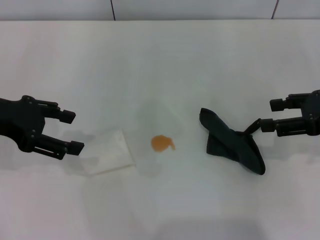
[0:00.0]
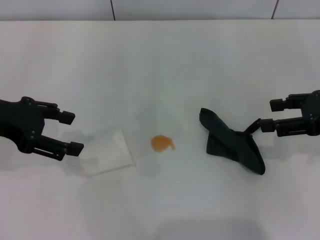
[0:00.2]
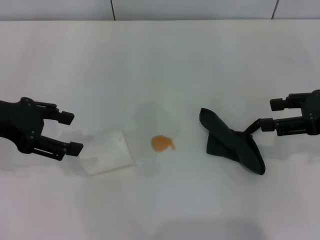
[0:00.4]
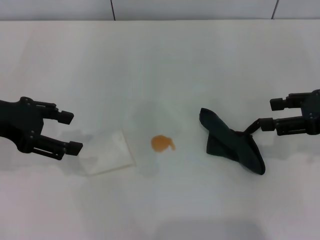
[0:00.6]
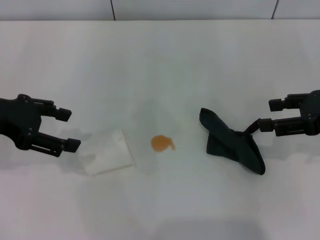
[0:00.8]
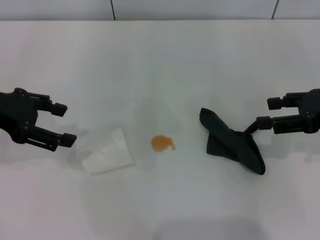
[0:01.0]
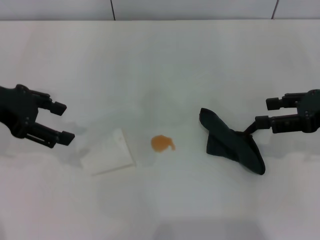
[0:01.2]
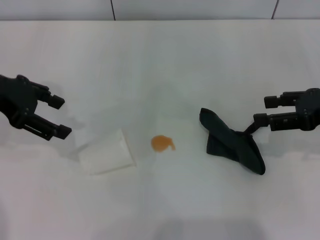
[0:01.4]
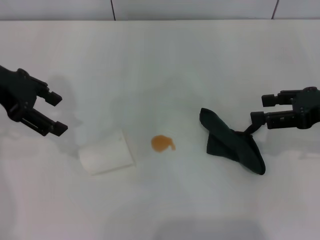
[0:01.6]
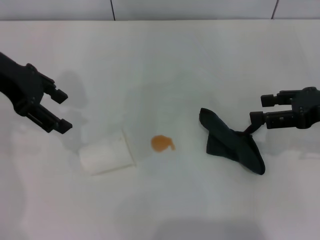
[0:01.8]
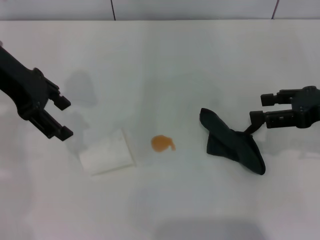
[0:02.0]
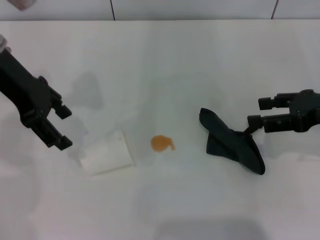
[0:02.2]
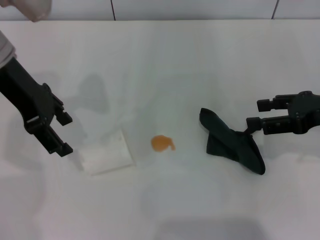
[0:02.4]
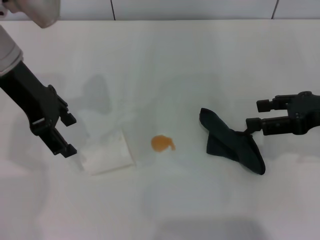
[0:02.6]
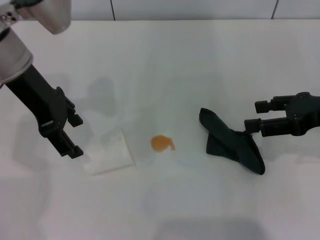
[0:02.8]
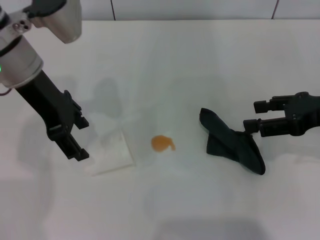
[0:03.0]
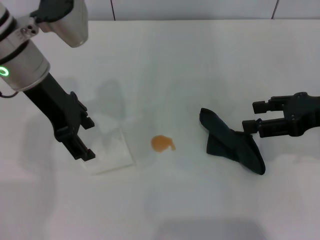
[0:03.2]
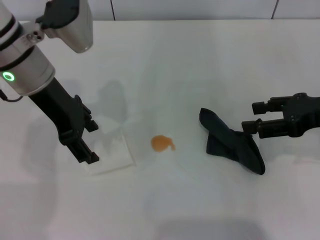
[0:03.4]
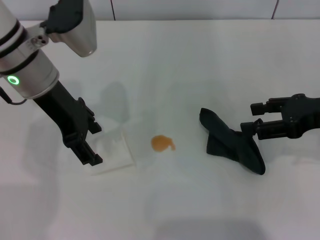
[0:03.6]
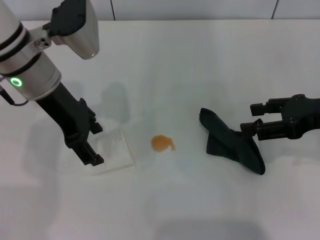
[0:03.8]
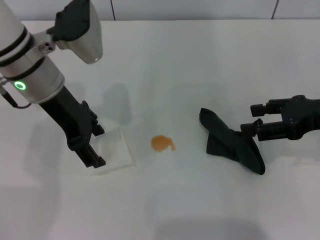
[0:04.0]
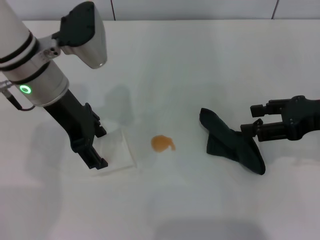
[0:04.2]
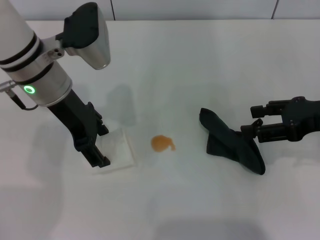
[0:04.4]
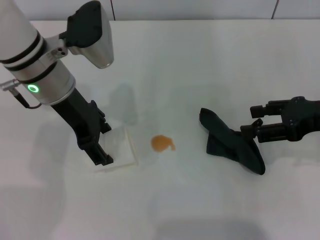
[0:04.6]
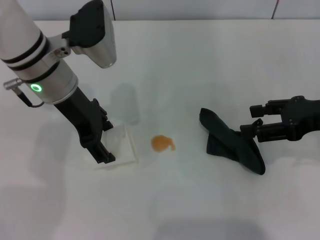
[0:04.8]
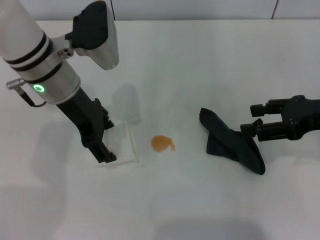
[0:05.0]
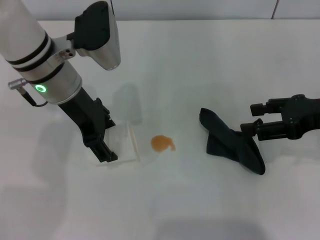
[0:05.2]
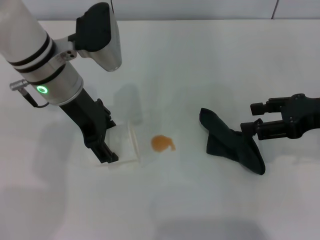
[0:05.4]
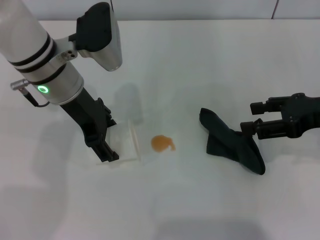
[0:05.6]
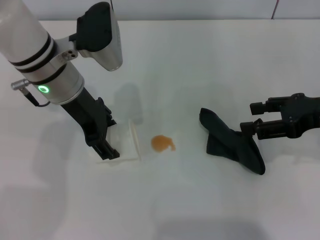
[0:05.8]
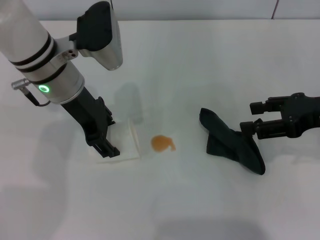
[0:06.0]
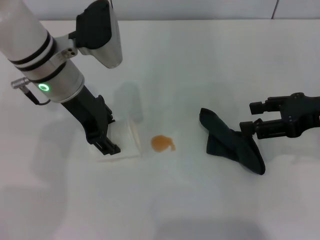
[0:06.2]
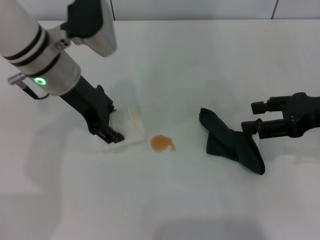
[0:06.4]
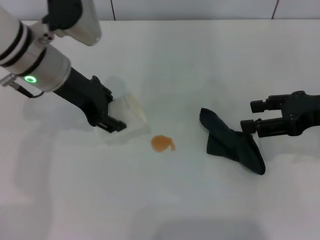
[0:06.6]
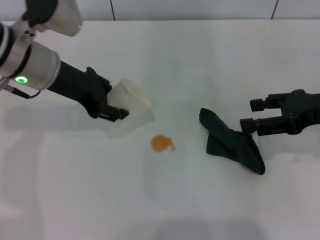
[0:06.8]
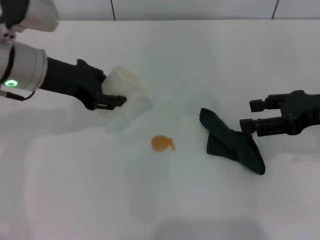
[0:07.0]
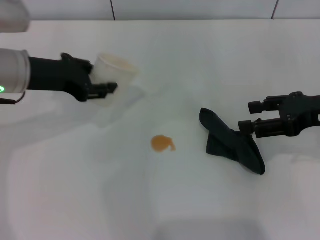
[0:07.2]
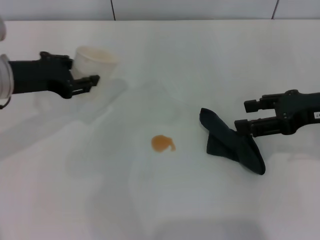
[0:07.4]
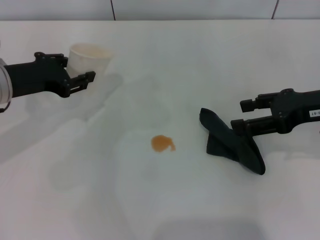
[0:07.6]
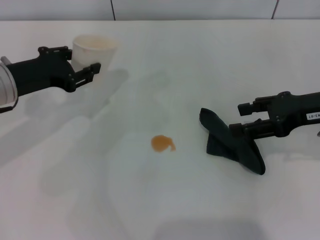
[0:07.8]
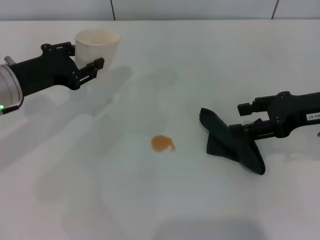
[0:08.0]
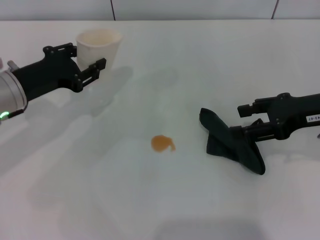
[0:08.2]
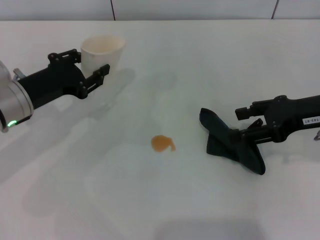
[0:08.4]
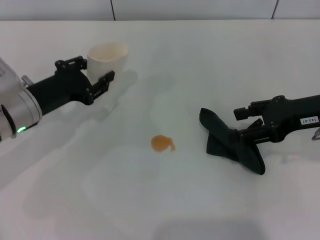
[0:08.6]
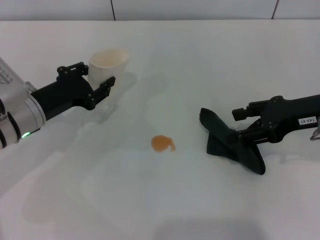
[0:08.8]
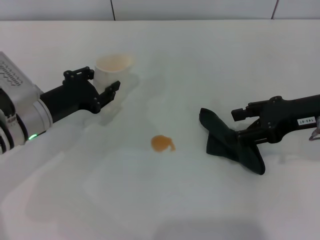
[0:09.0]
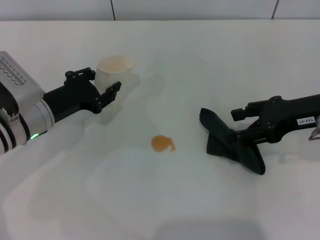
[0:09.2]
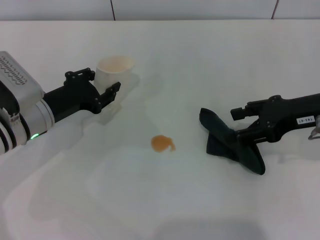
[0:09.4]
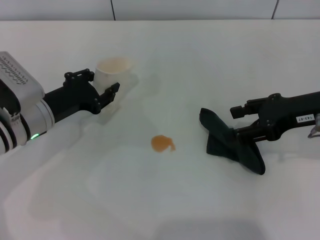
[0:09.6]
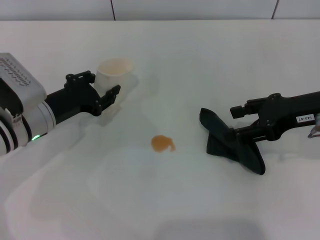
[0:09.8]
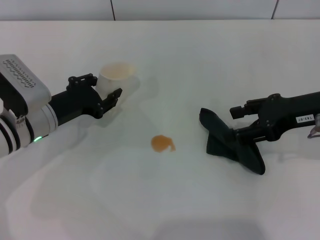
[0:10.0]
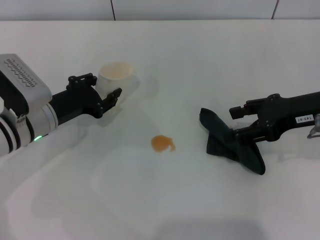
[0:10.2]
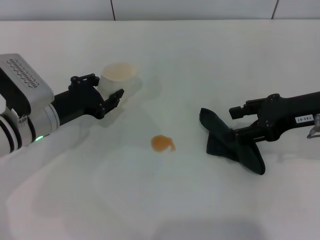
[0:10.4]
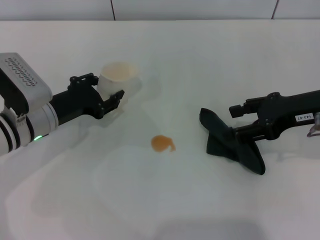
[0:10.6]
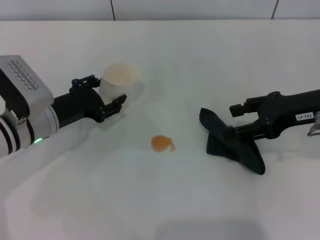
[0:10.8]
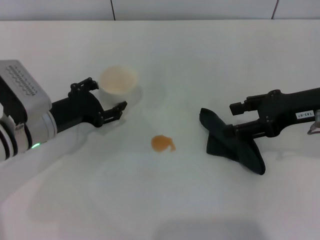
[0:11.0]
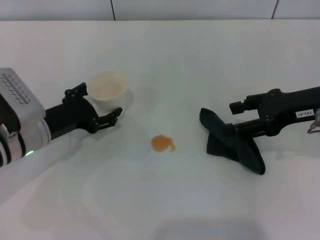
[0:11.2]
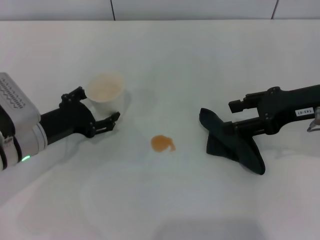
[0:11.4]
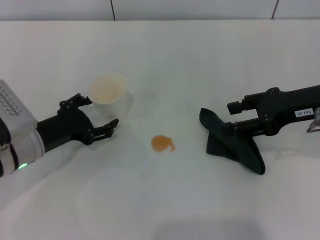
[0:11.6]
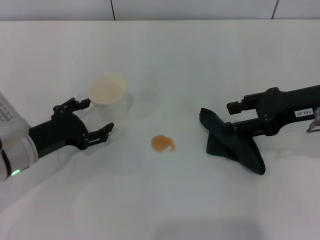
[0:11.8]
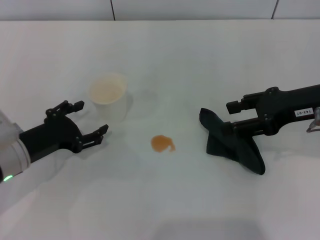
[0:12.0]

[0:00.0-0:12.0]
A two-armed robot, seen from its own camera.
Step, 0:00.0 to 0:06.0: Grasp the paper cup with the left gripper.
Step, 0:06.2 to 0:11.8: Stand the paper cup upright with the left gripper.
0:00.0 to 0:01.6: The left gripper heads forward, covering roughly 5 cm.
0:01.6 to 0:03.0: The left gripper heads to the right, covering about 10 cm.
0:03.0 to 0:06.0: The grippers stay close to where they were, moving slightly.
0:06.0 to 0:07.6: The left gripper shifts some 10 cm to the left, and closes.
0:07.6 to 0:09.0: The left gripper is displaced downward by some 10 cm.
0:09.0 to 0:10.4: The grippers stay close to where they were, moving slightly.
0:10.4 to 0:12.0: The left gripper shifts roughly 5 cm backward, and opens.

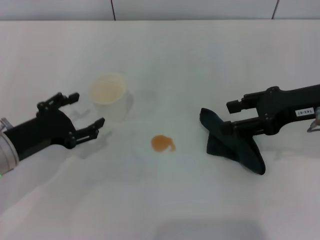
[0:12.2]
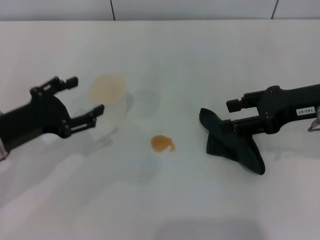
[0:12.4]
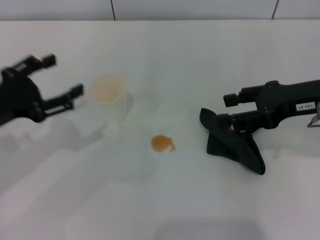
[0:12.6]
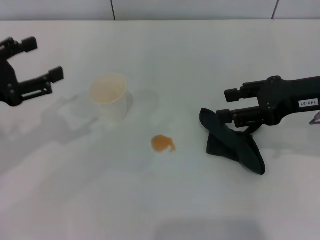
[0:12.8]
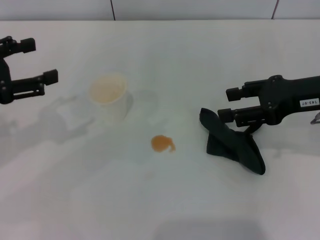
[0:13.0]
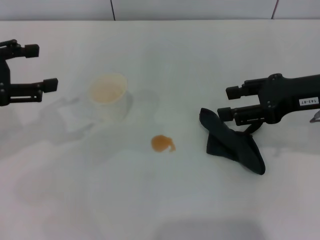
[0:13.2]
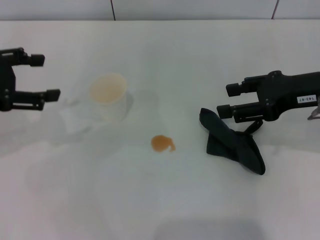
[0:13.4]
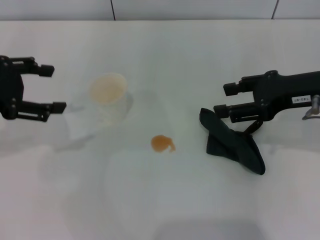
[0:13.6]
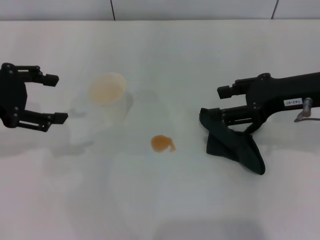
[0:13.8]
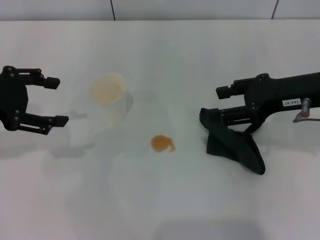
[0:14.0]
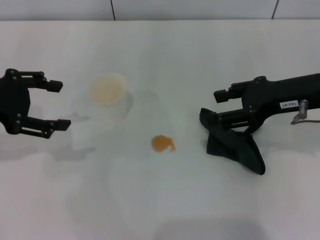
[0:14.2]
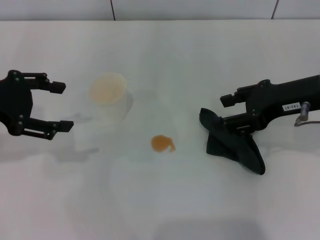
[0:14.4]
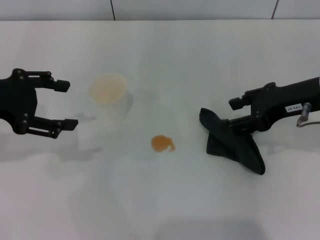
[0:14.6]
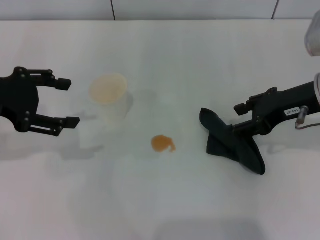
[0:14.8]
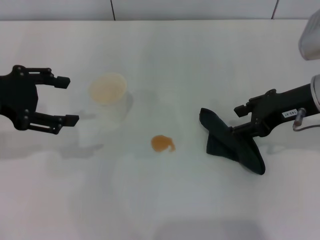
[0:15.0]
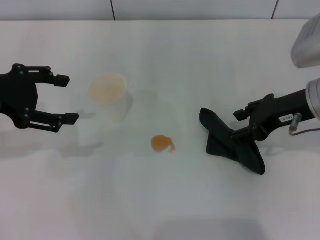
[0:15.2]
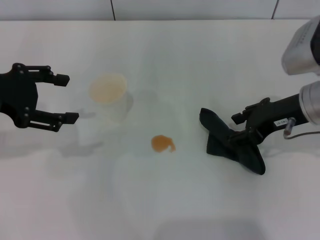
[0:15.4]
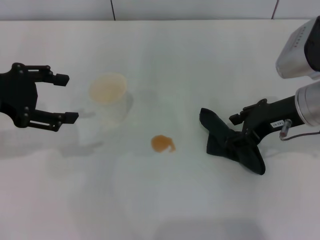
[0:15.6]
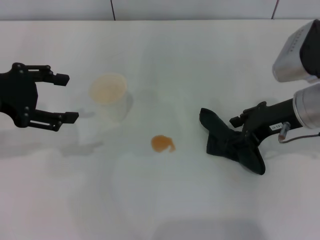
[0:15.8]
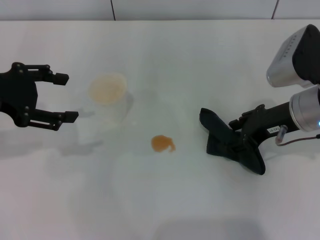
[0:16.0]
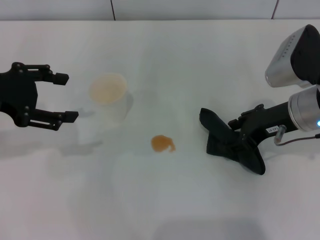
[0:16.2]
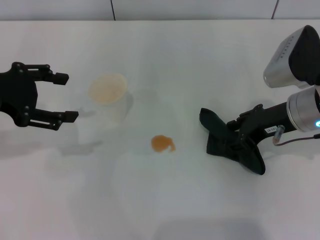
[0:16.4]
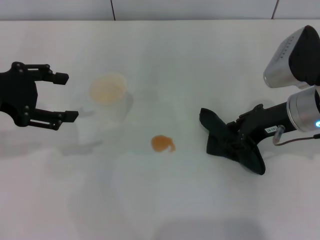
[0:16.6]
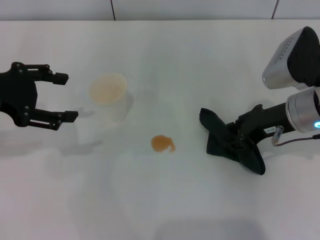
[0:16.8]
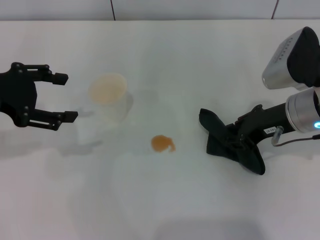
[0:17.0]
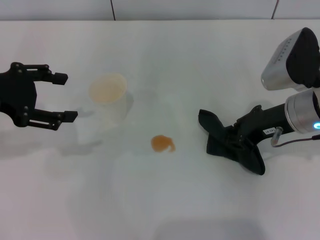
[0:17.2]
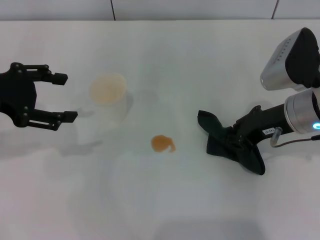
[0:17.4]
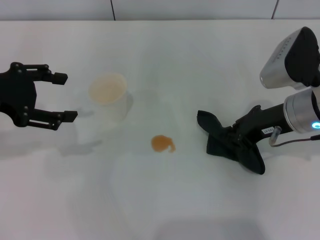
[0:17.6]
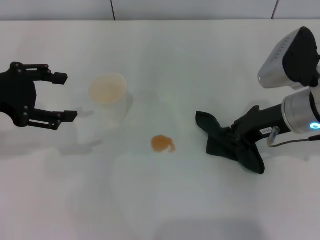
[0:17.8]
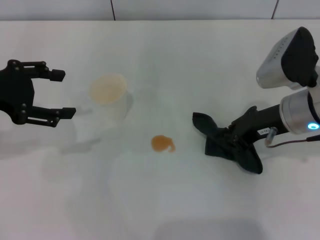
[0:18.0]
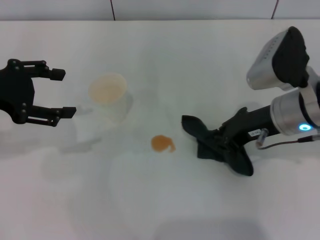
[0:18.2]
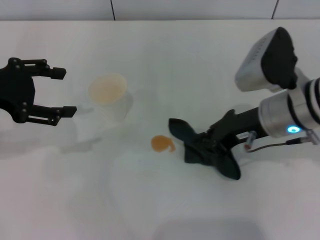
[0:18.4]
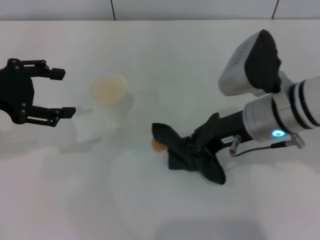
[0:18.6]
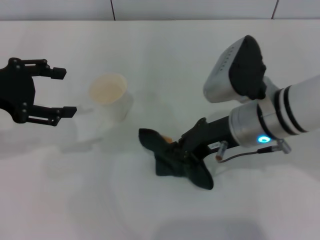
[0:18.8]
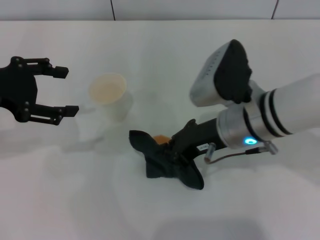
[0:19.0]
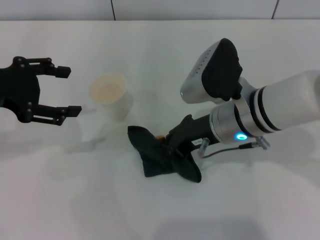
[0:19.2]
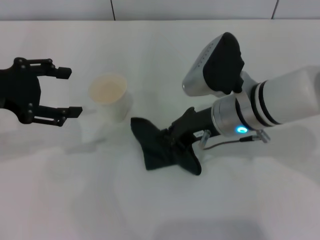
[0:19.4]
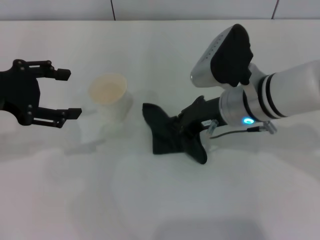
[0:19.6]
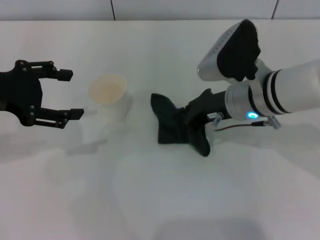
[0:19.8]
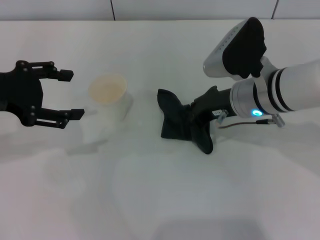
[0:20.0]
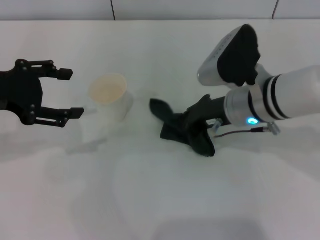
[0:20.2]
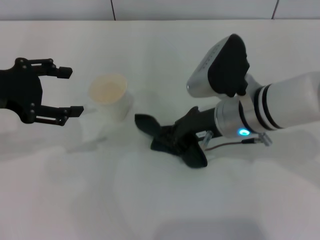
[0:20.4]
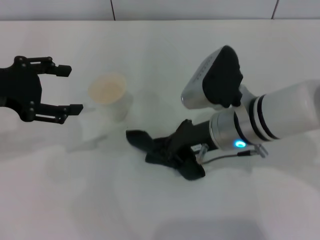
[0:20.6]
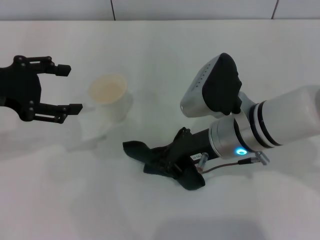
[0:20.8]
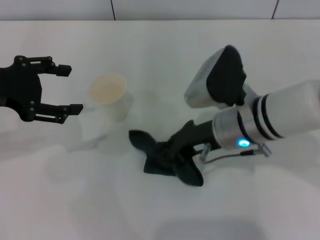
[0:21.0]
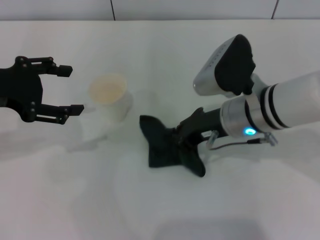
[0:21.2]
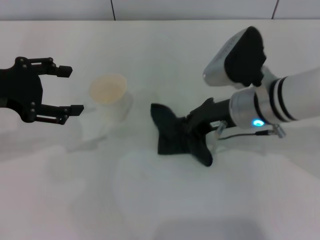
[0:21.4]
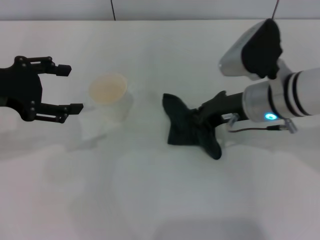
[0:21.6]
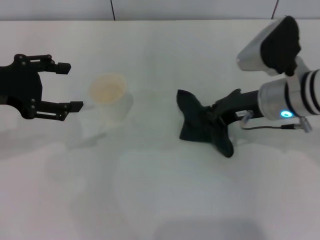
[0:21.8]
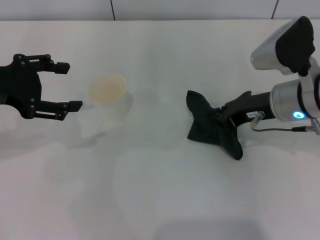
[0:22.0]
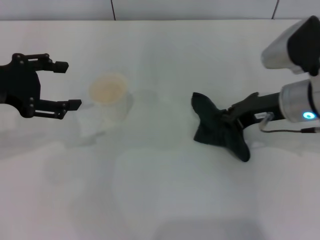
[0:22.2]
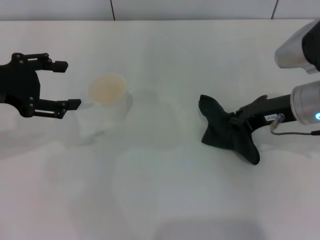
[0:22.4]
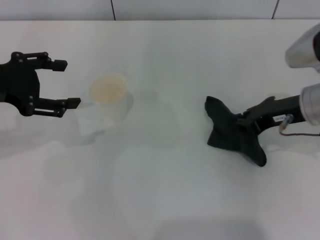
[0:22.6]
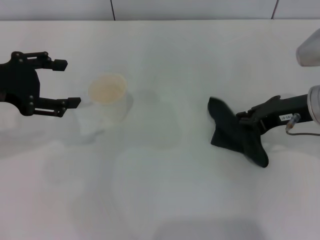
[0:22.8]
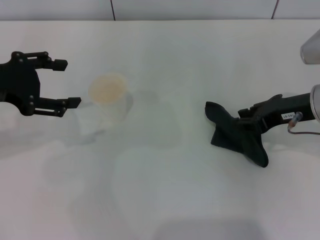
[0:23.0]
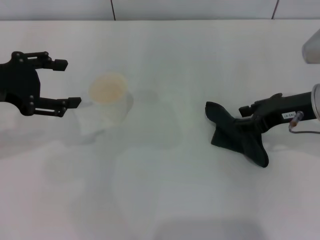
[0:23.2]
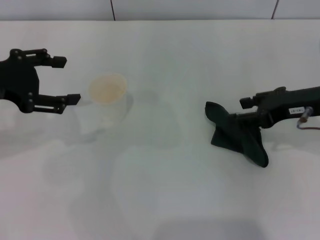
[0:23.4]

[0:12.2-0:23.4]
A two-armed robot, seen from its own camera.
Step, 0:12.2 to 0:17.8: Grasp the rag with the right gripper.
Step, 0:18.0 to 0:22.4: Wipe the stains off the table with the right gripper.
Step, 0:22.6 to 0:23.2: Place the rag on the table with the right gripper.
0:12.2 to 0:13.8: The left gripper moves upward, roughly 15 cm.
0:15.4 to 0:17.0: The right gripper closes its fingers.
0:17.0 to 0:18.6: The right gripper goes about 5 cm to the left, and closes up.
0:18.6 to 0:21.8: The grippers stay close to where they were, moving slightly.
0:21.8 to 0:23.4: The right gripper shifts about 10 cm to the right, and opens its fingers.
